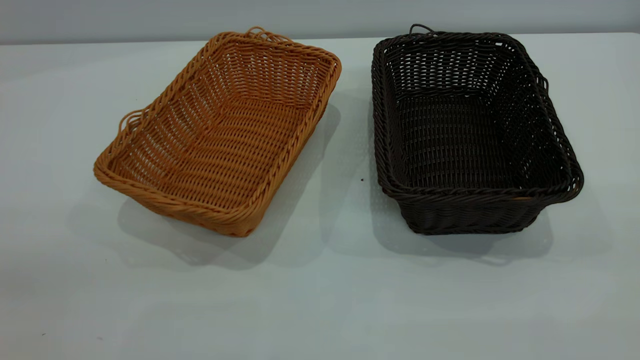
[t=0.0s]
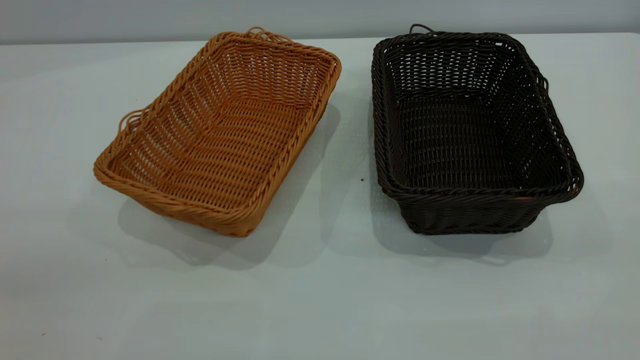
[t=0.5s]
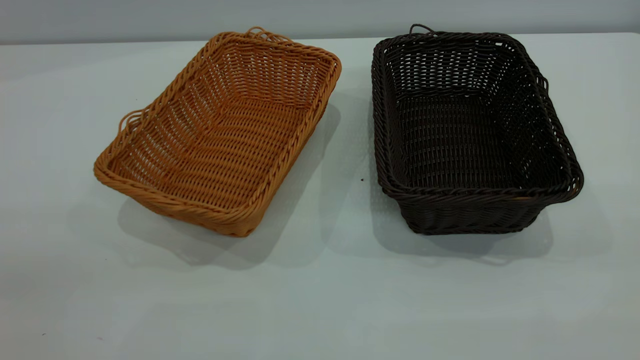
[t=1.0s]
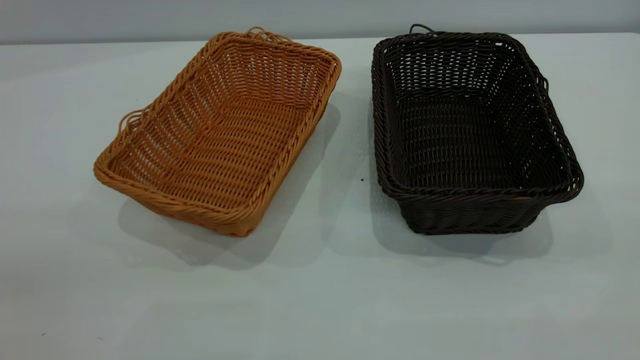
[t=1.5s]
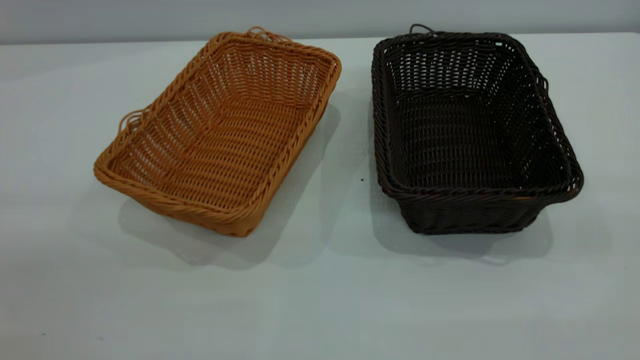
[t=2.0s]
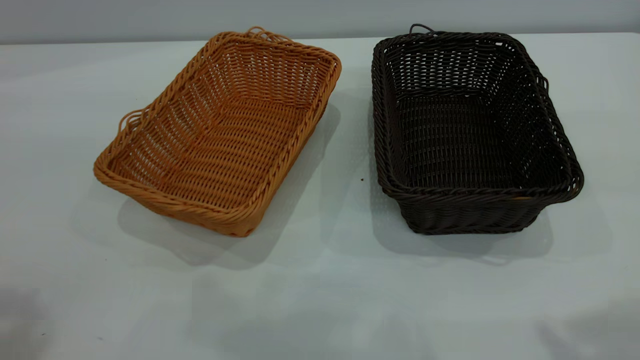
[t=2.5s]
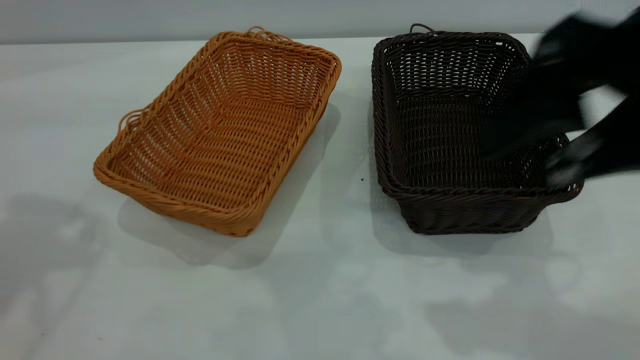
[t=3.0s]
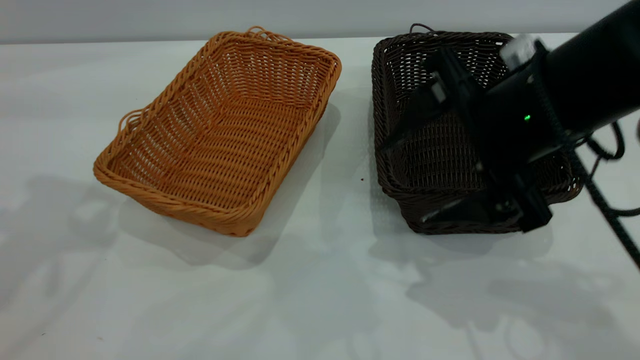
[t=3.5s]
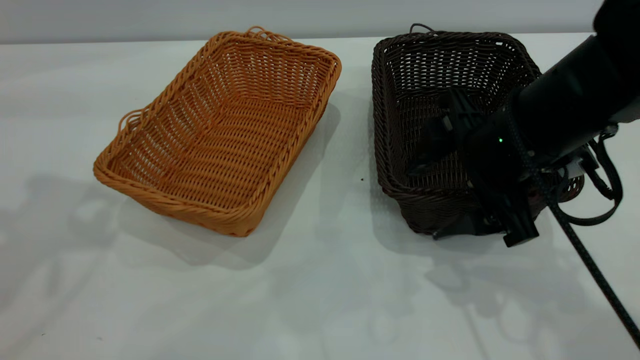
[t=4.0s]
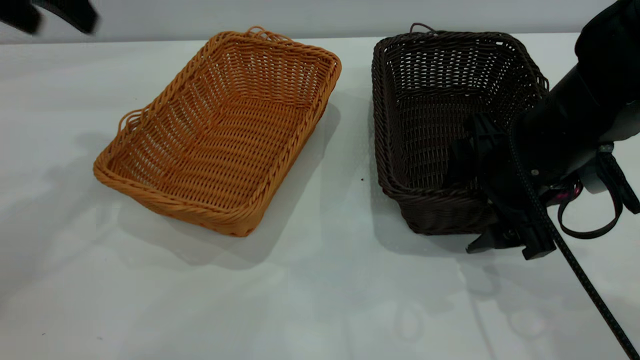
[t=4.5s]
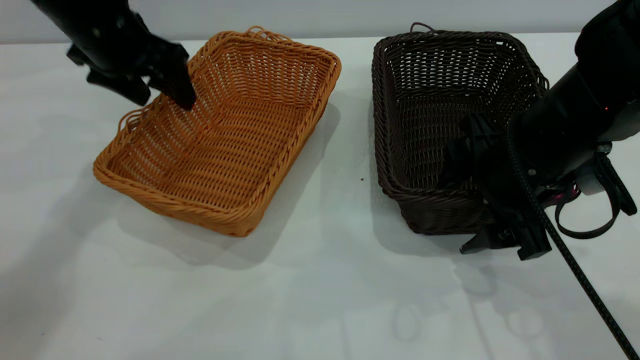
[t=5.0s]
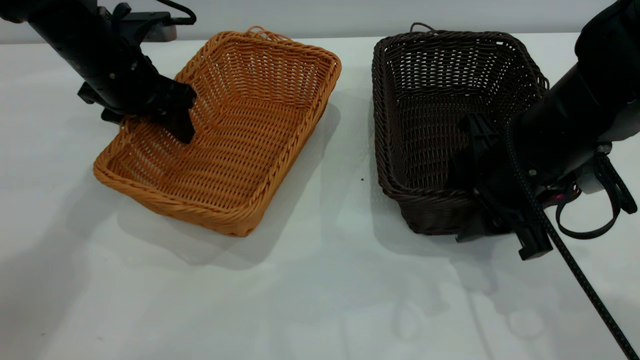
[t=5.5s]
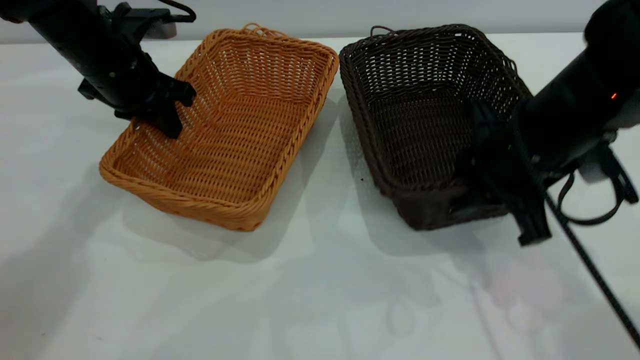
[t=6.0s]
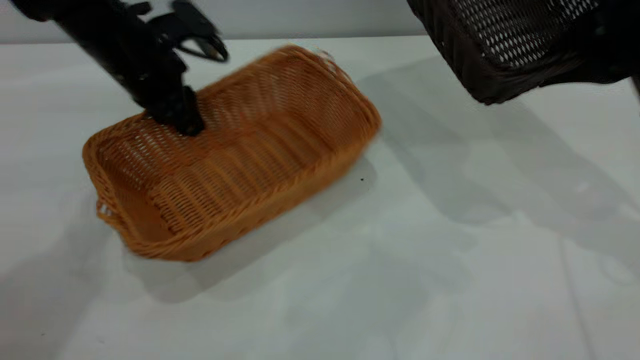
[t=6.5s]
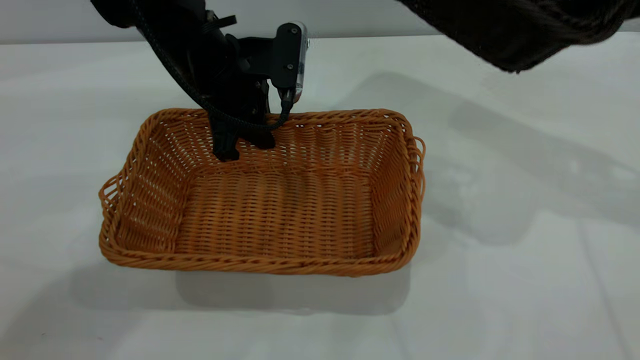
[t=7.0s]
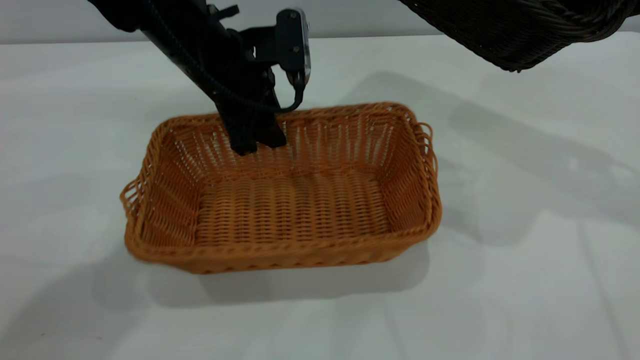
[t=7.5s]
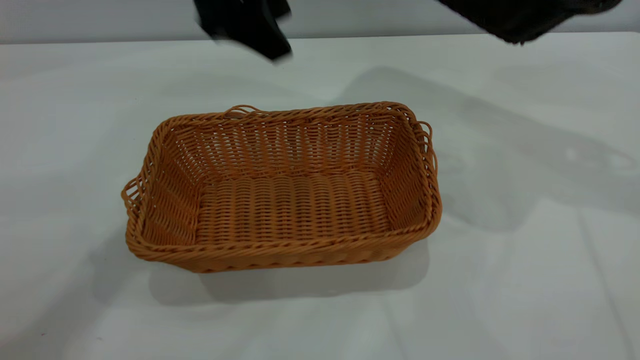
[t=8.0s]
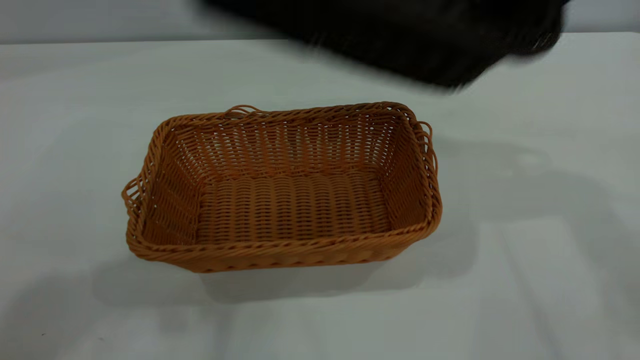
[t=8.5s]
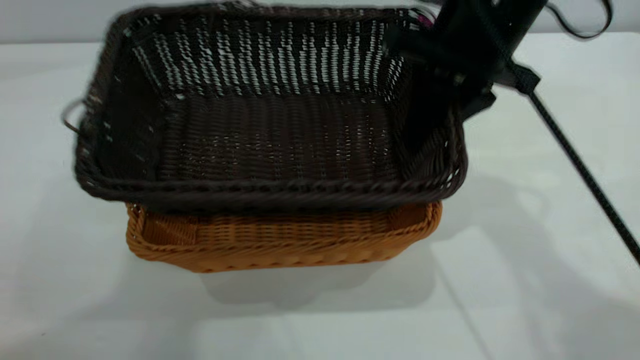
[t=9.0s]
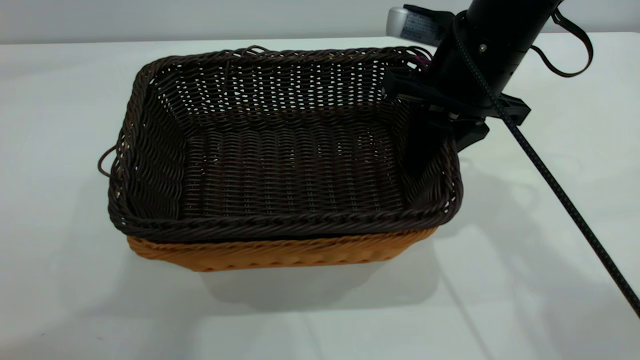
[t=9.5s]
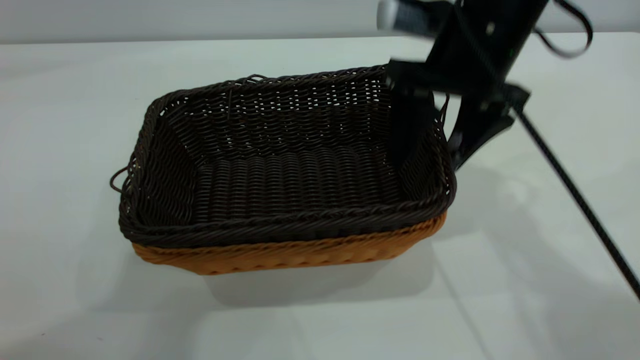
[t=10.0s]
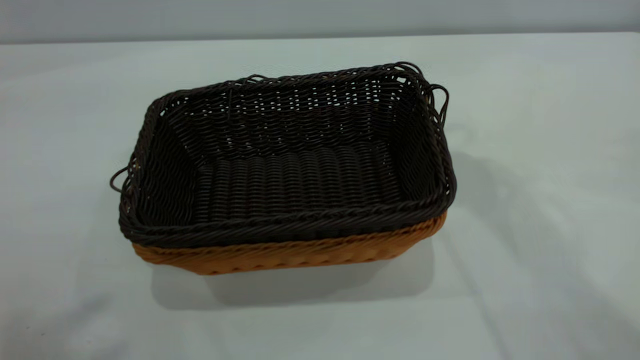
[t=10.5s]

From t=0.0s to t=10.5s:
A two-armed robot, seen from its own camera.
Task of the whole recording: the left gripper grasp the brown basket and place it in the center of the table, the right gripper grasp the black basket and place it inside the brown one.
Step, from t=0.0s to t=6.0s: Pick up the light basket with the right gripper.
Step, from t=6.5s to t=7.5s: Place the light-colored basket in the center.
Step, from t=8.0s to t=10.0s: Place the dark basket on top of the light basket.
From t=2.0s to t=4.0s: The right gripper is displaced forward, downward and to the left by roughly 40 cm.
From t=4.0s to t=6.5s: The left gripper is displaced downward, forward and to the right by approximately 25 cm, and closes up; the right gripper shifts approximately 15 cm to the right and upward, and closes.
From t=6.5s to t=8.5s: The left gripper shifts about 40 cm upward and backward, and opens up; the right gripper heads to the left and upward, covering approximately 10 cm.
From t=8.5s to t=10.5s: The left gripper shifts about 20 cm backward, upward and to the left, while the right gripper is displaced upward by approximately 15 cm, and opens.
